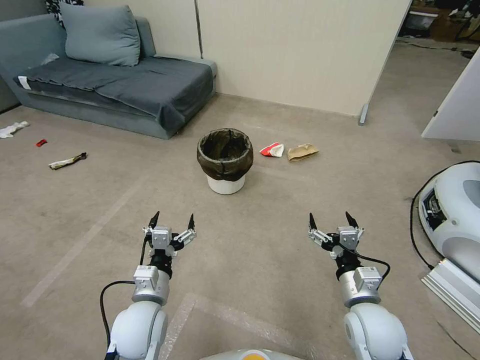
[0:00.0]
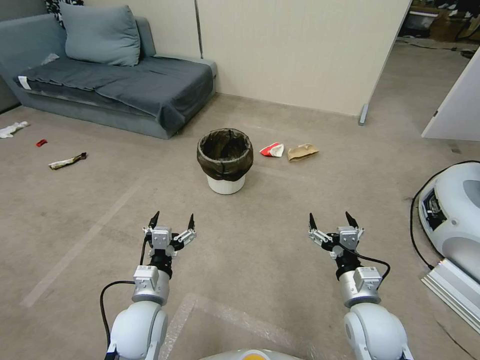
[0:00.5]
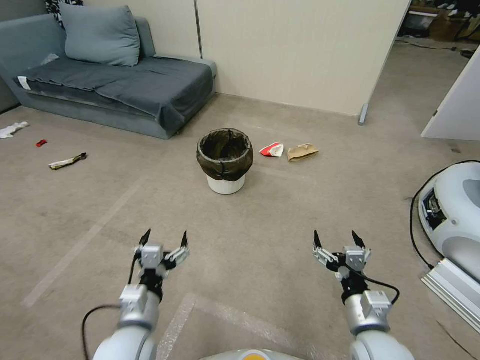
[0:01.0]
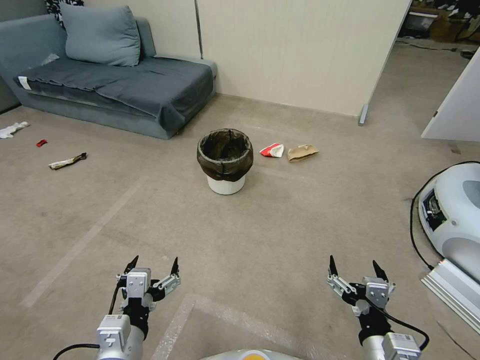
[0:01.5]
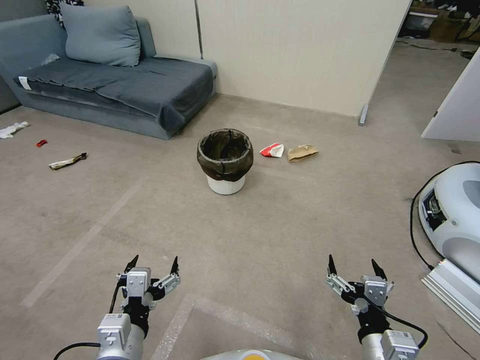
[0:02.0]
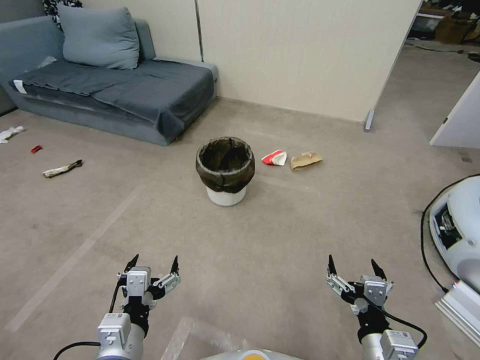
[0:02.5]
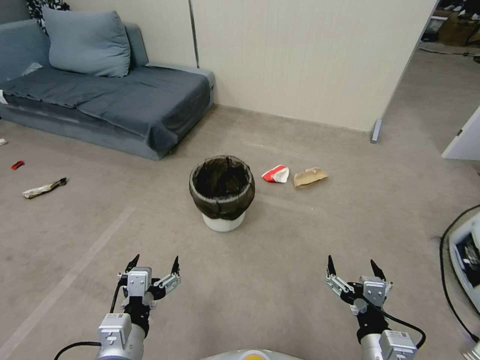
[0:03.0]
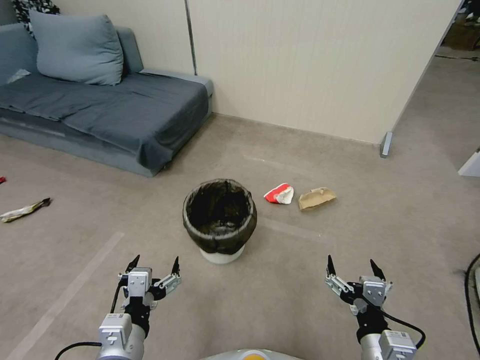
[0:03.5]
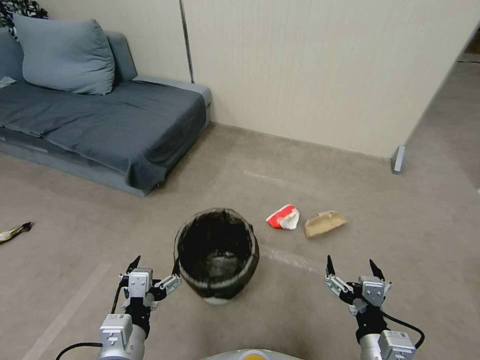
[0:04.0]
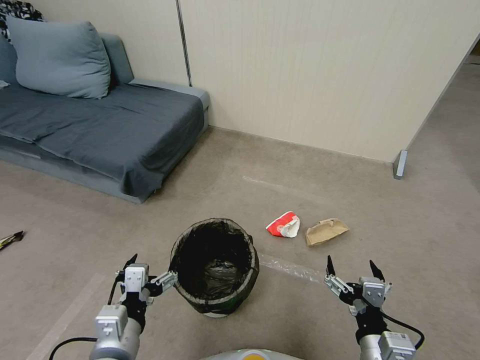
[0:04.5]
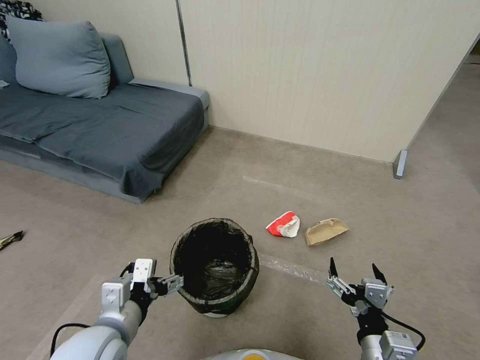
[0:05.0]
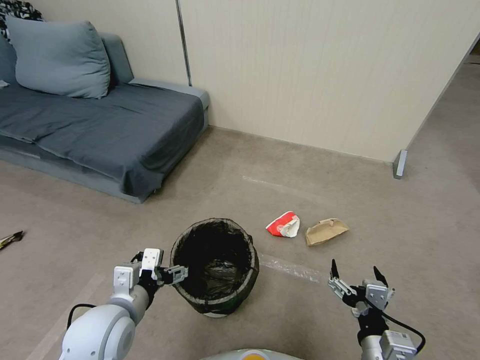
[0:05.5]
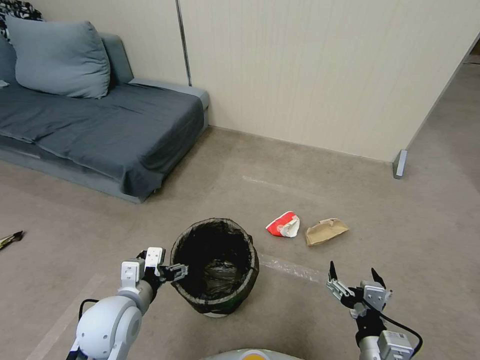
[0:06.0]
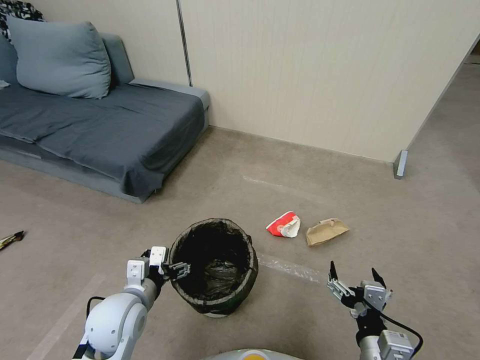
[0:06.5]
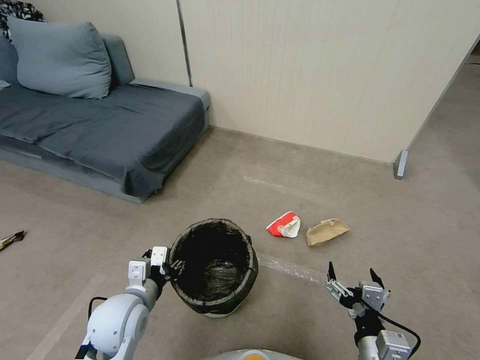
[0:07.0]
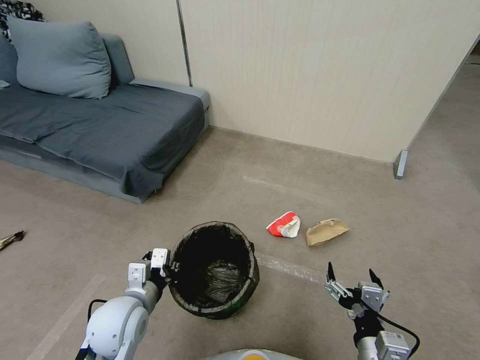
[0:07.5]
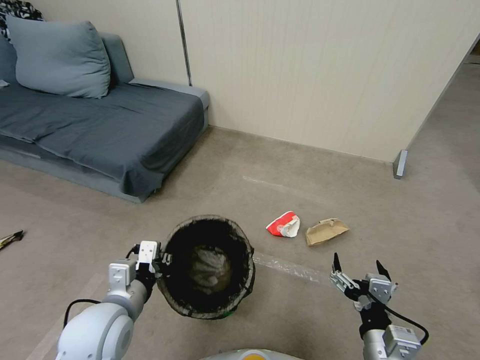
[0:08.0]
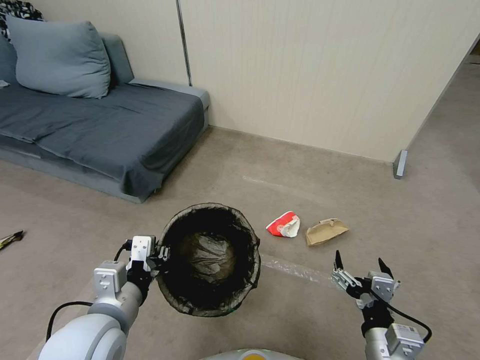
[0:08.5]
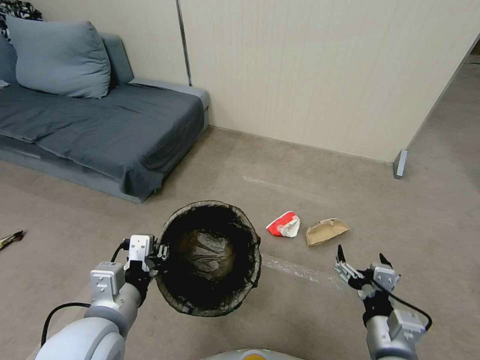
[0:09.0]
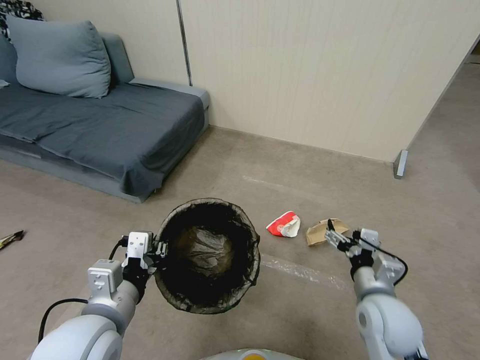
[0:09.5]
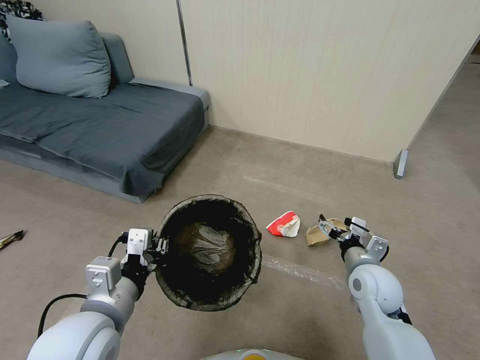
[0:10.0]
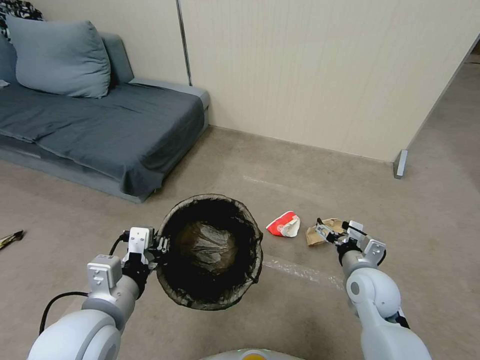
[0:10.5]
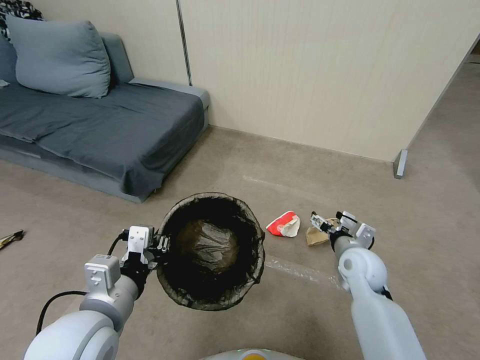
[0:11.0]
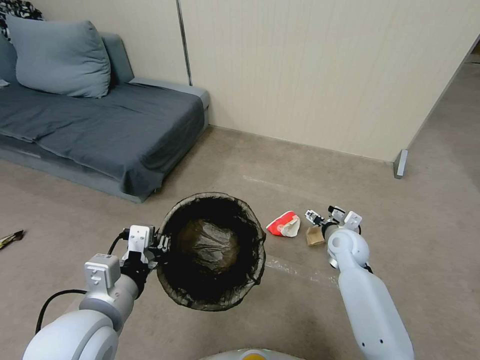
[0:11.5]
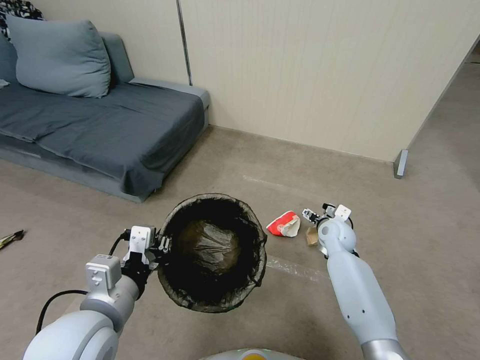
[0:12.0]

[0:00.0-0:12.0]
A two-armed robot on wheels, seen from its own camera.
Task of the whole recording: Pick up the trash bin, then pick up the garbage from the floor and place it into the trash bin.
4.0 to 6.0 s: The left gripper is displaced forward by roughly 10 cm.
6.0 to 8.0 s: The left gripper closes up.
8.0 to 10.0 s: The left gripper travels upward by about 5 cm. Meanwhile the right gripper goes approximately 20 cm forward.
10.0 to 12.0 s: The right gripper heads forward, covering roughly 15 cm.

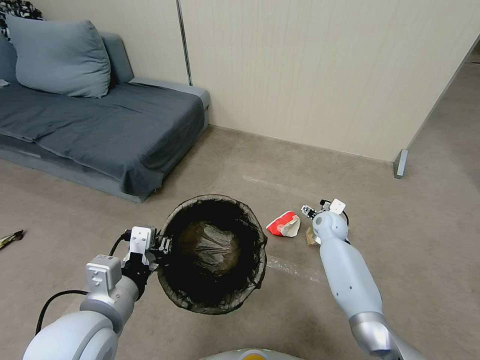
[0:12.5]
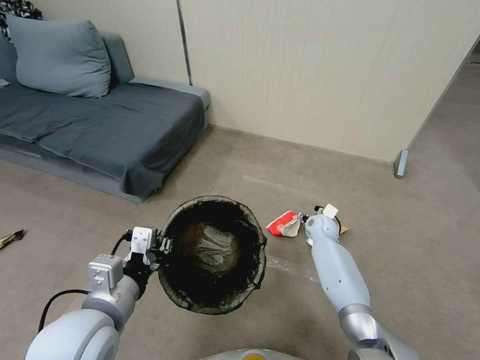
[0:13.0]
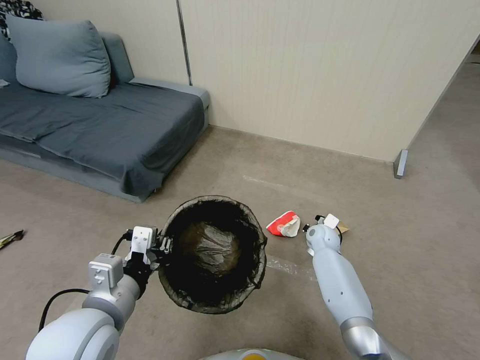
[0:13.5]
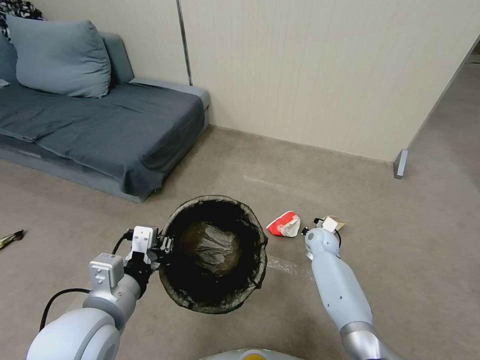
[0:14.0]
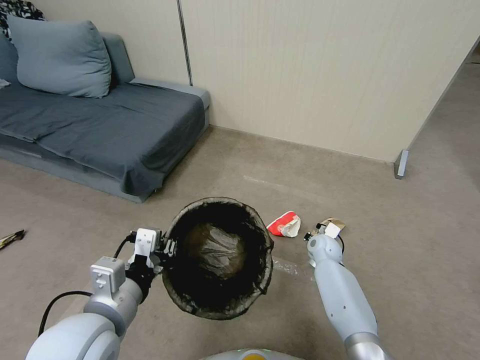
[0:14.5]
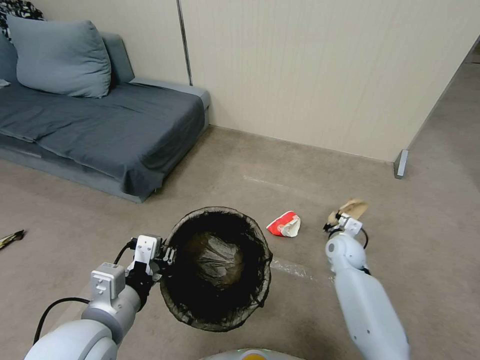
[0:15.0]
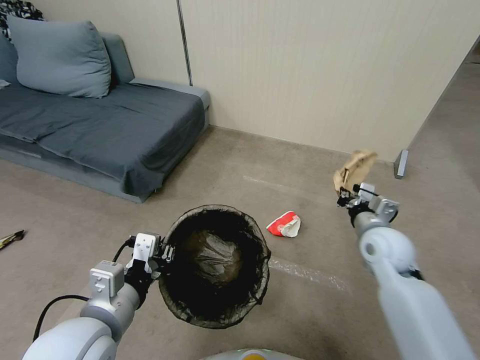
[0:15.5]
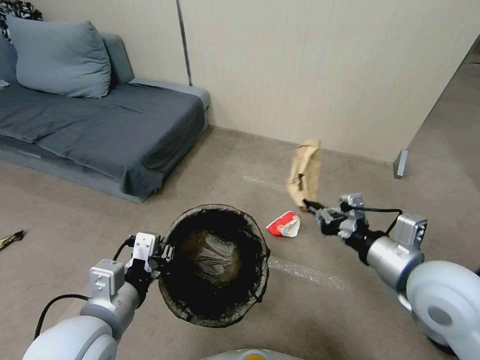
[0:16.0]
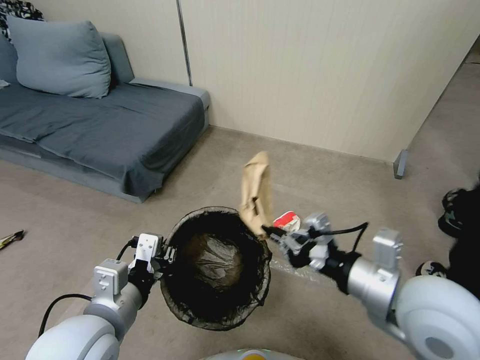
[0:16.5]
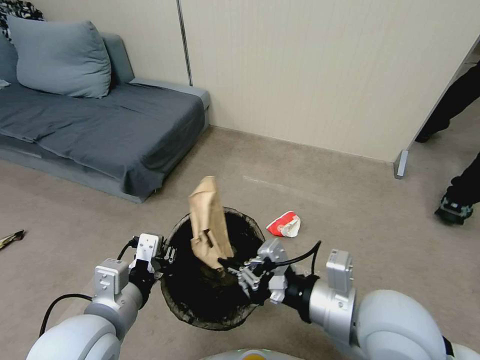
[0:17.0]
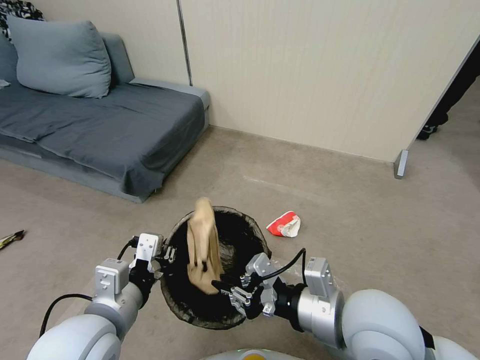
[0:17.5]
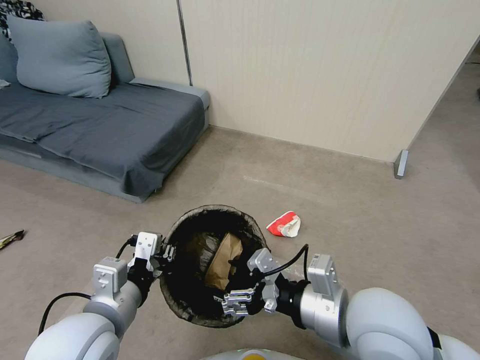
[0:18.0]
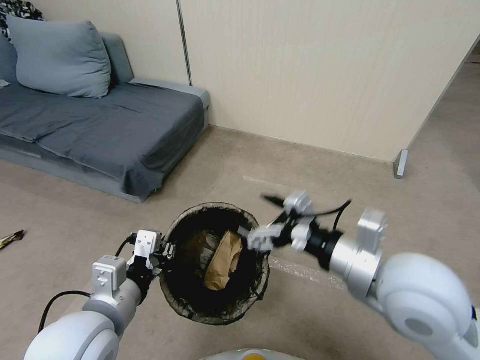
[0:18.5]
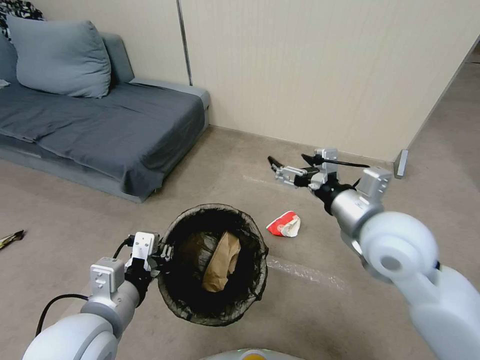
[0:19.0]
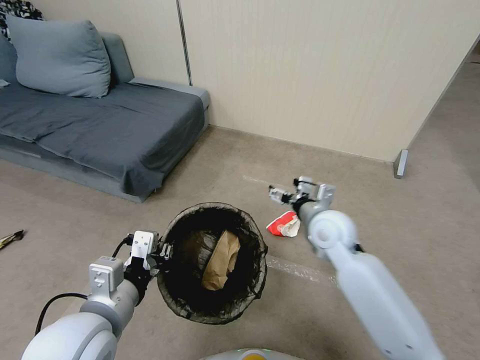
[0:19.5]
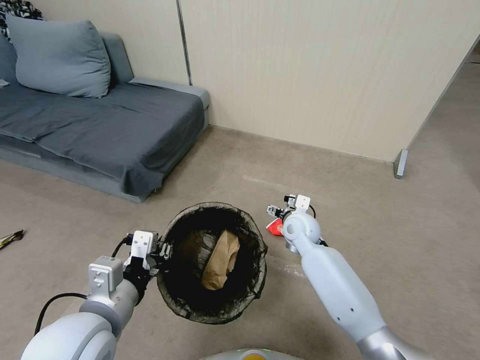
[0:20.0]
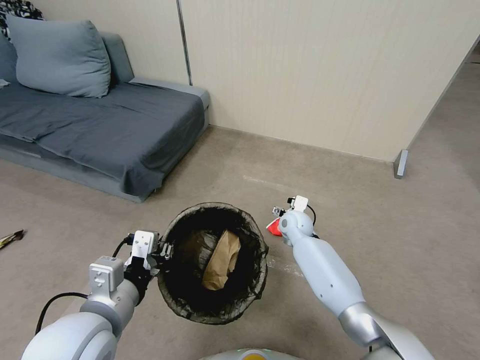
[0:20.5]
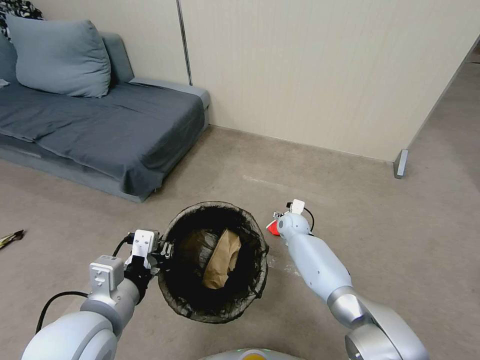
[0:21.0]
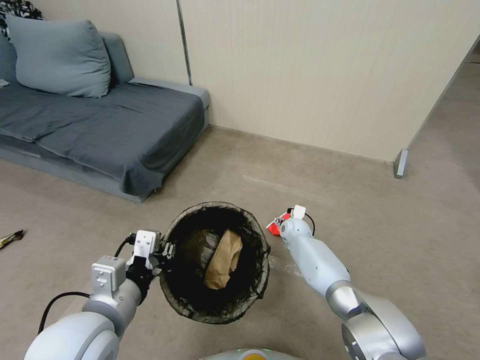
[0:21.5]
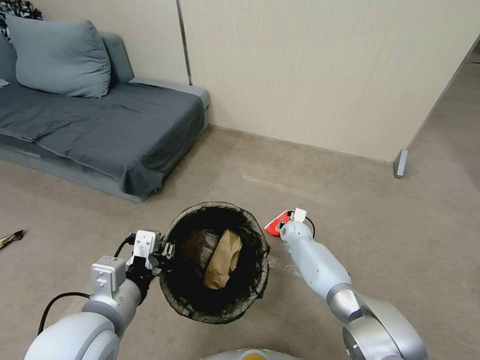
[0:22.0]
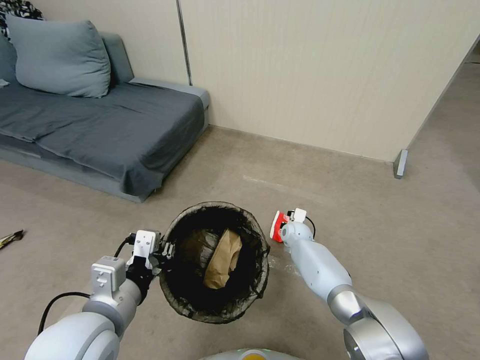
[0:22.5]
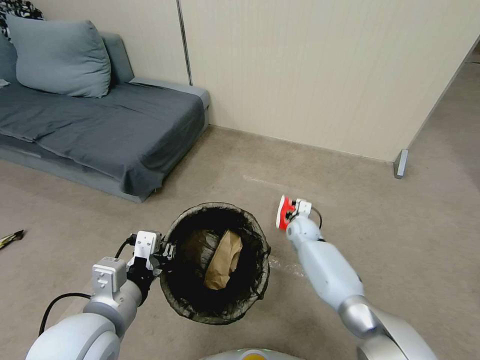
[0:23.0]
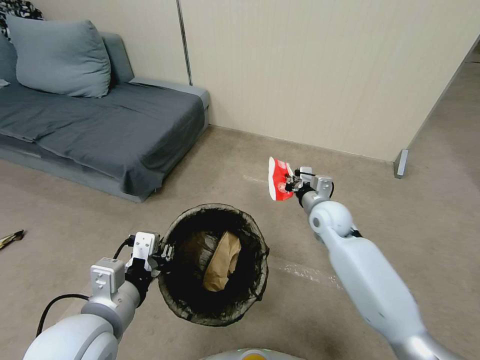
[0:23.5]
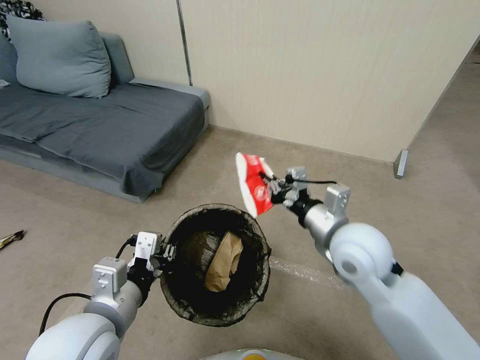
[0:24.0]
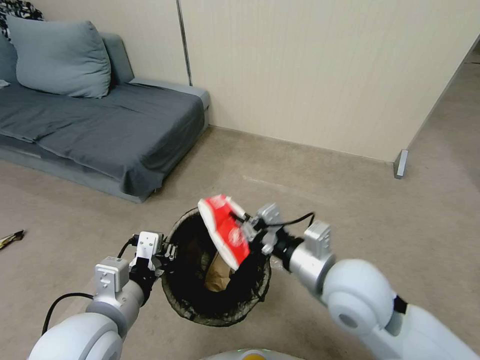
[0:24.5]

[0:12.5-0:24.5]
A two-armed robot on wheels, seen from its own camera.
Task of the whole recording: Pick up the trash bin, then pick up the garbage from the floor and place it into the trash bin.
12.5 to 14.5 s: The right gripper goes roughly 5 cm downward, and closes up.
14.5 to 16.5 s: The right gripper is displaced upward and backward by approximately 40 cm.
16.5 to 18.5 s: The right gripper opens.
18.5 to 20.5 s: The right gripper moves downward and forward, about 40 cm.
20.5 to 22.5 s: The right gripper moves downward, about 10 cm, and closes its fingers.
22.5 to 24.5 s: The right gripper travels upward and backward by about 40 cm.

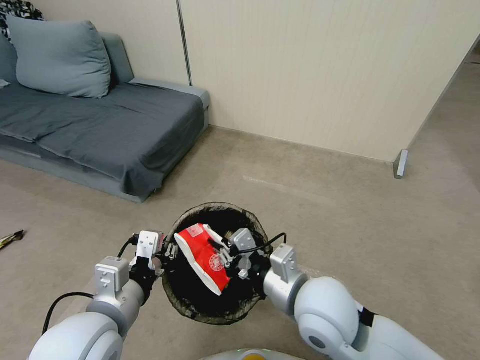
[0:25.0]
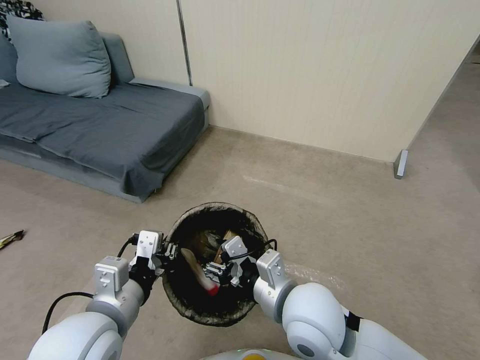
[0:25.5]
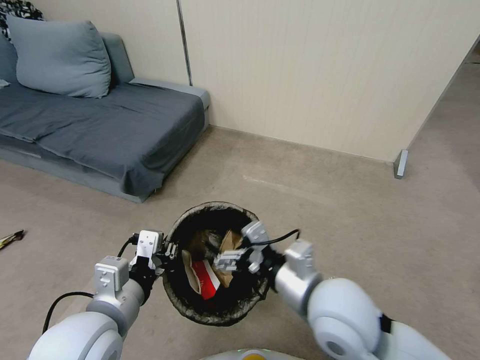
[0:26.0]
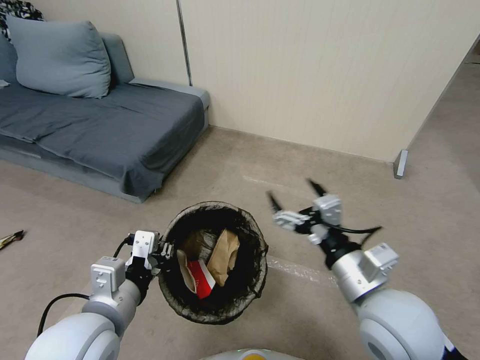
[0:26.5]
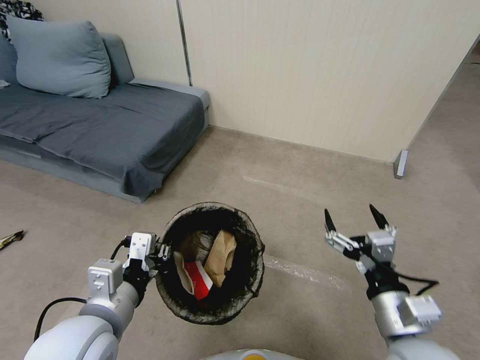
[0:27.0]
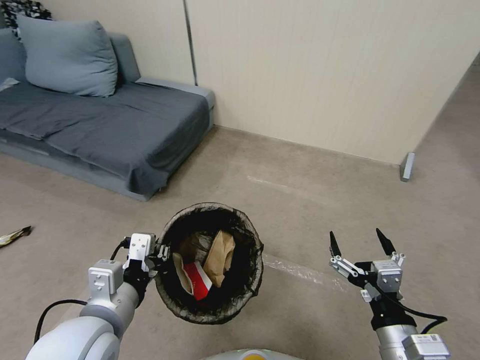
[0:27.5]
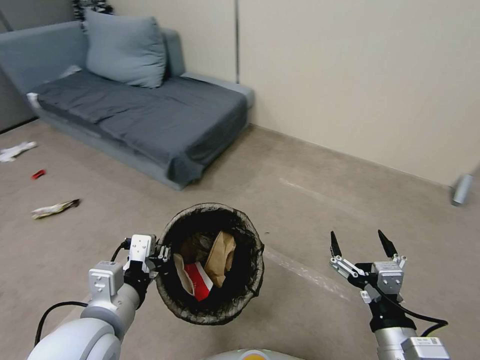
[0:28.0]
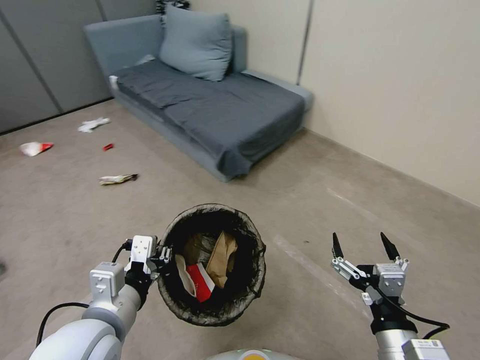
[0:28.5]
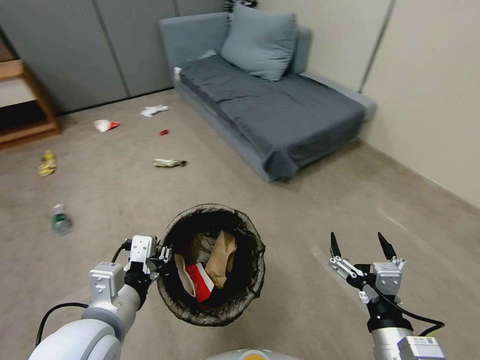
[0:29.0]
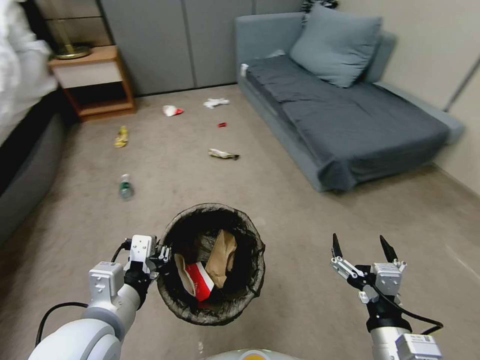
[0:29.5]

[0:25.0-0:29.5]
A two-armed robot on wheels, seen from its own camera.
Task of the whole recording: Pick up the trash bin, then pick up the garbage from the floor and place it into the trash bin.
25.0 to 27.0 s: The right gripper heads to the right and backward, covering about 15 cm, and opens.
27.0 to 29.5 s: The right gripper moves roughly 5 cm.
